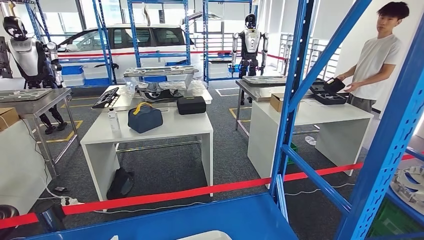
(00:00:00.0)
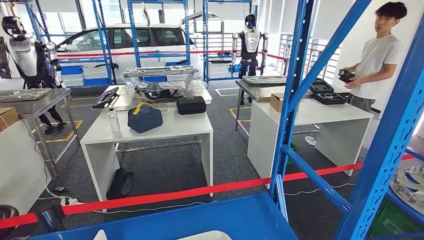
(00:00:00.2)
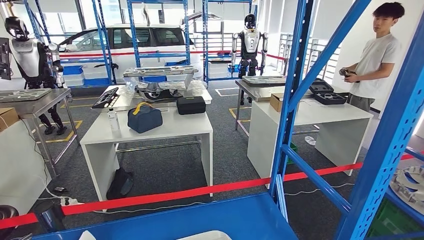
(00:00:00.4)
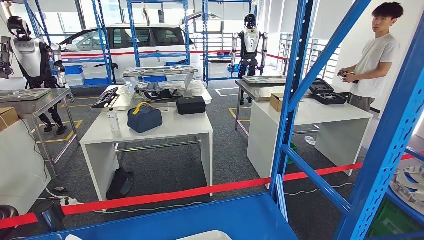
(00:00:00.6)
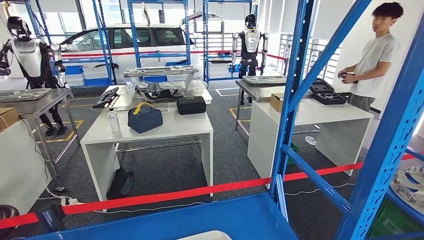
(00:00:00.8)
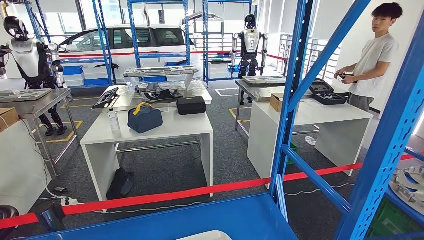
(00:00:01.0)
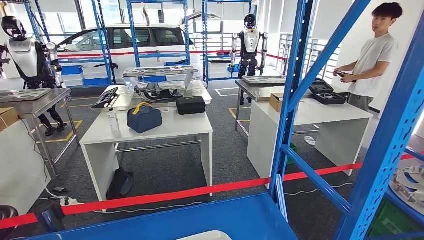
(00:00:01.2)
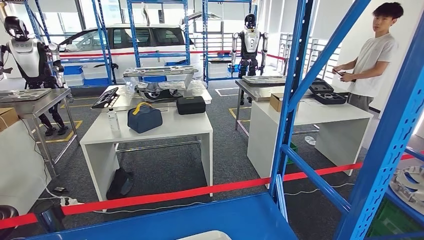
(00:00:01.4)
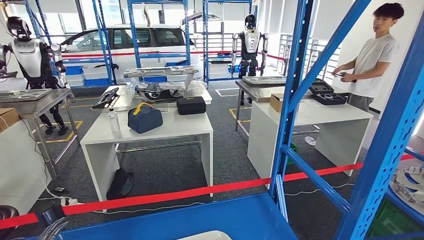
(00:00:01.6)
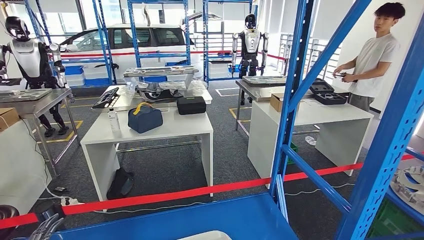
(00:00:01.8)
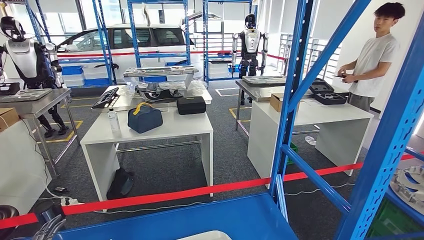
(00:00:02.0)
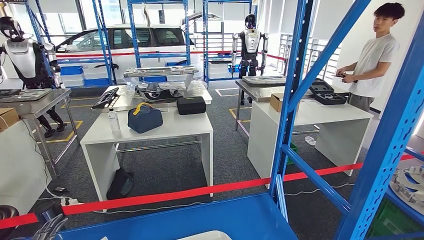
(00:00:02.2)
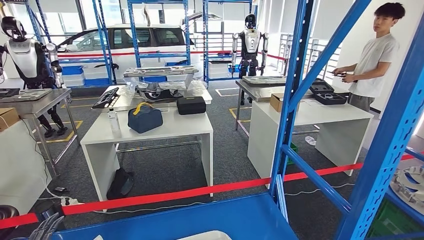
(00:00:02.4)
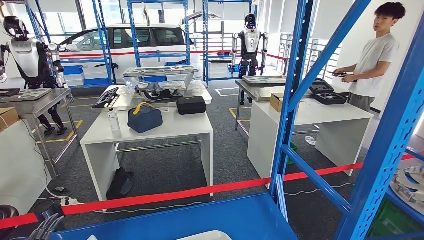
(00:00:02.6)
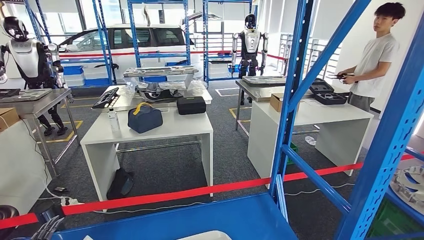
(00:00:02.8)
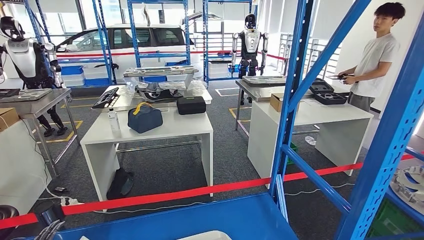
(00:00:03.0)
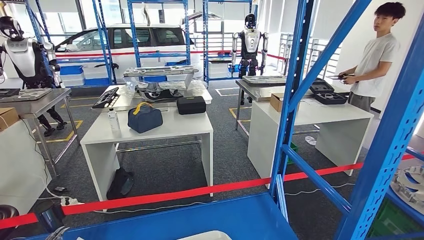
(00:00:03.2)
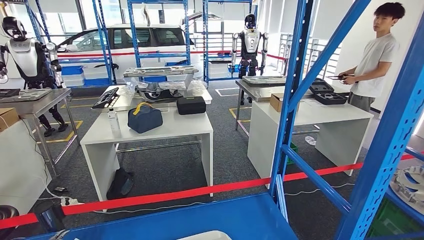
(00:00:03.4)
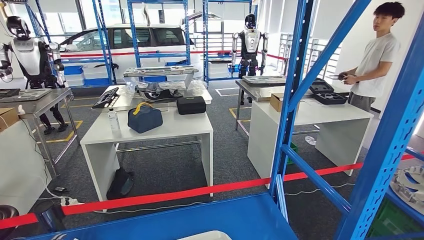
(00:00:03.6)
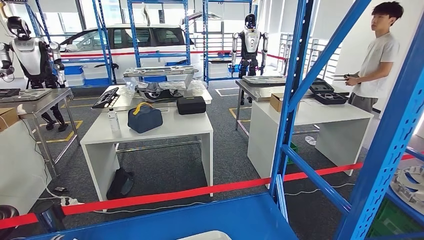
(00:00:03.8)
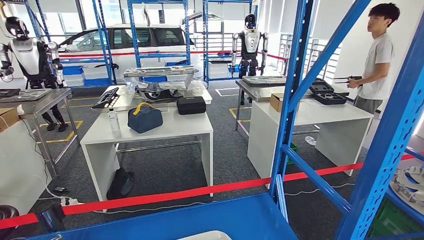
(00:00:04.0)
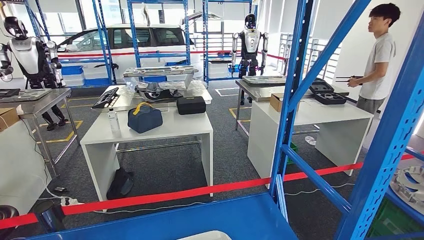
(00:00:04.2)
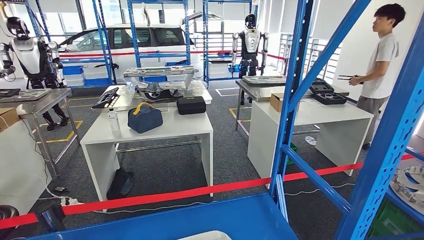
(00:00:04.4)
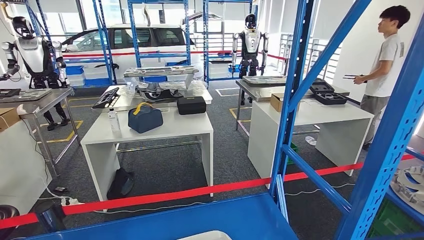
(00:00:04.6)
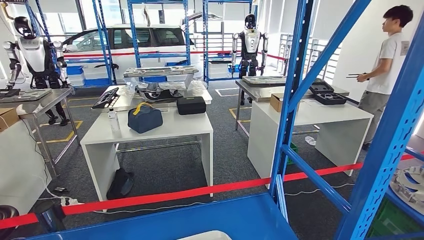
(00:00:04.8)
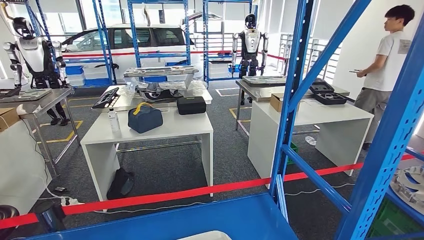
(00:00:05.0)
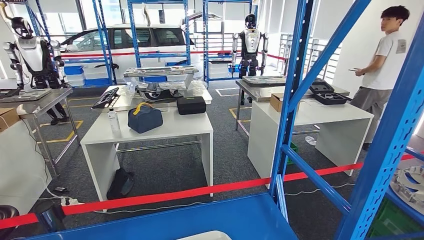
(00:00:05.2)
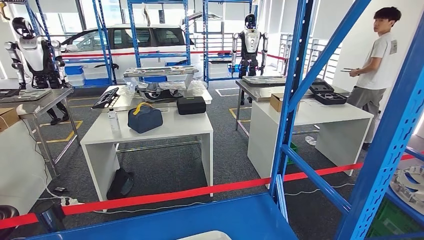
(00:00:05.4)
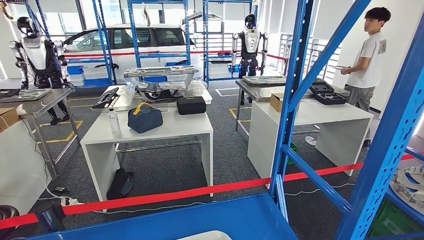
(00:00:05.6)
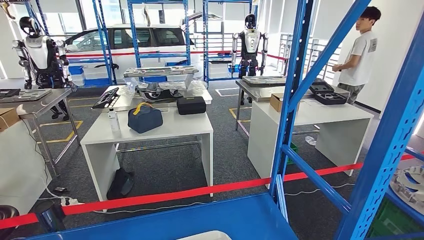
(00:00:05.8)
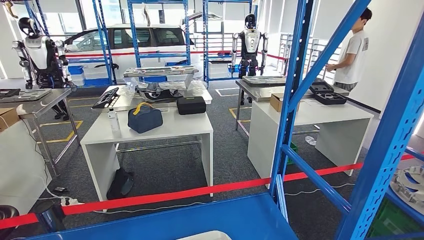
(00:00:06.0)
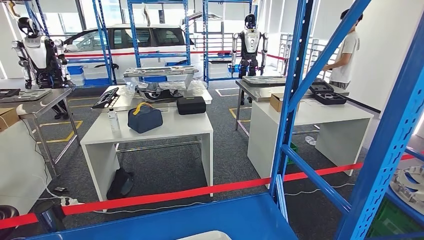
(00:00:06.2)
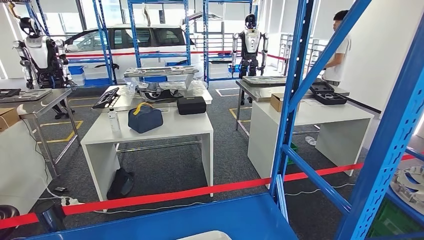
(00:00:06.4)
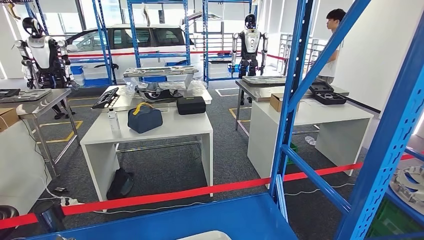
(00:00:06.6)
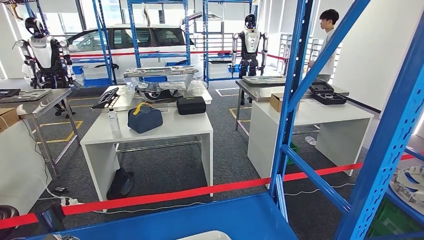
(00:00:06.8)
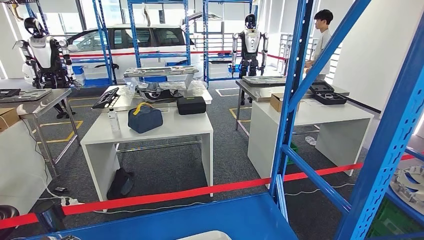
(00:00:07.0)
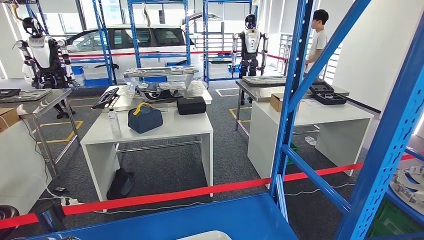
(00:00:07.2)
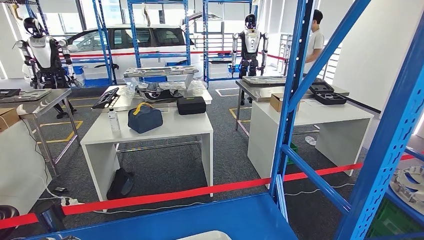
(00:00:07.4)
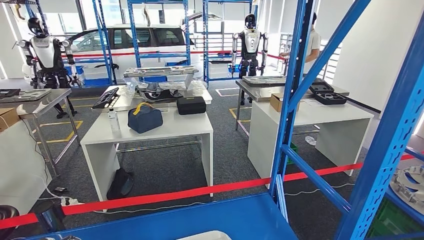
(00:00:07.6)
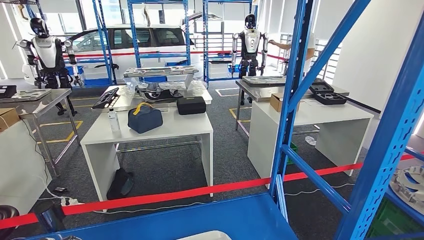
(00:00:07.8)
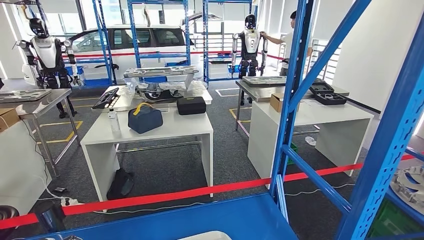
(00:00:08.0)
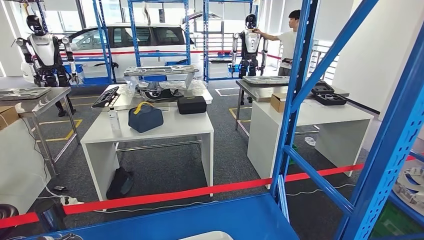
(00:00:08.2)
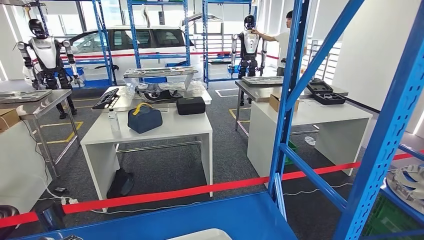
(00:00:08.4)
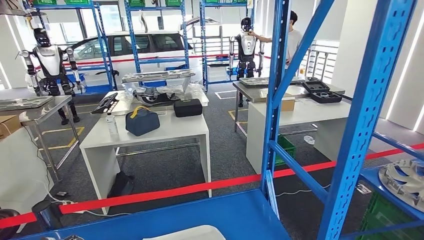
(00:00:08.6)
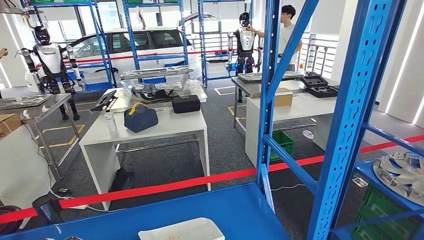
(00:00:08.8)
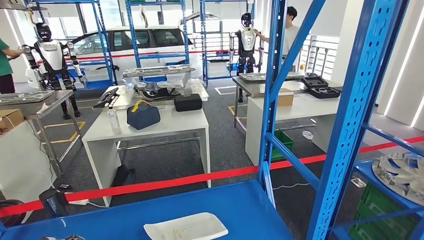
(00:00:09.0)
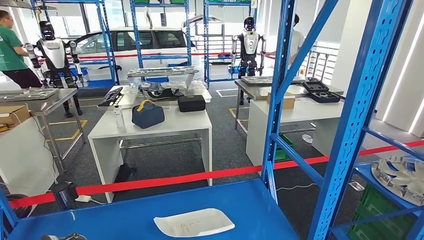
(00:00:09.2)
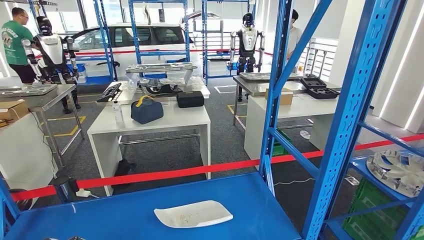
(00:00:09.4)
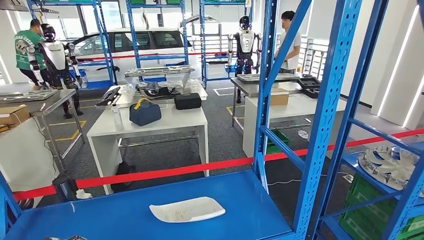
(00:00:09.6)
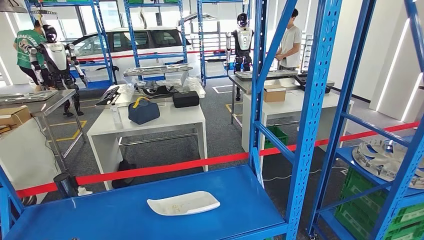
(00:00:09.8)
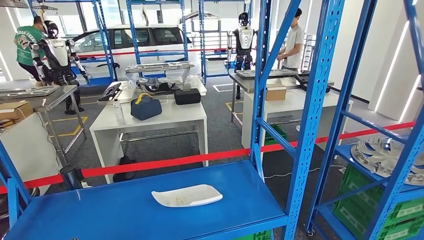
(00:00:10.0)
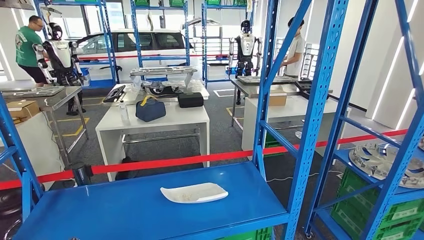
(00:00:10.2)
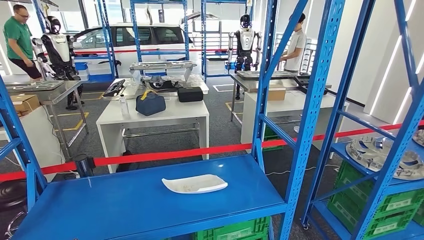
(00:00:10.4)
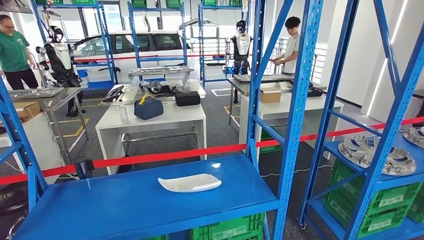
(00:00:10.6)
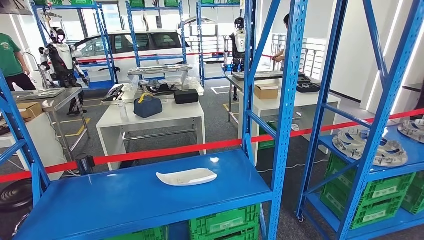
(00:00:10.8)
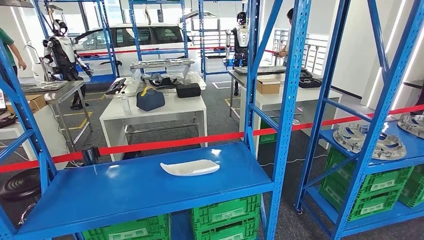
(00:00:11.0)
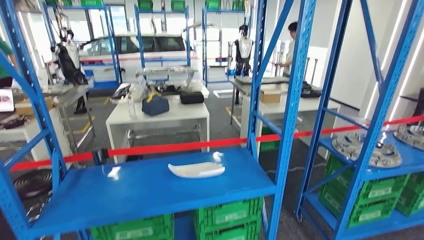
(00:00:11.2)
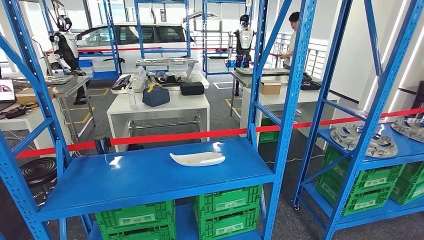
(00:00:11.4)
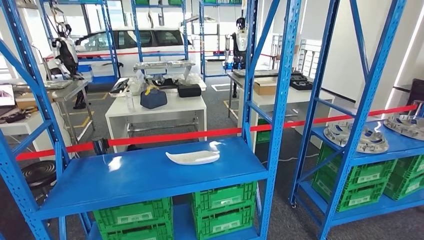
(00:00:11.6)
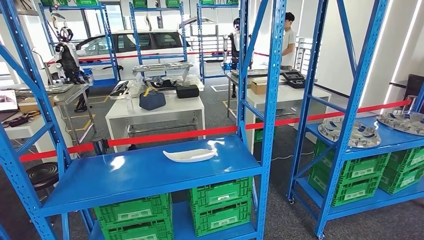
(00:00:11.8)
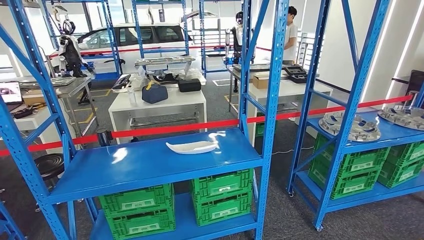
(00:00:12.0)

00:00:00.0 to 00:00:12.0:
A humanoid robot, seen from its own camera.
Step, 00:00:00.0 to 00:00:07.4: Take small components from the rack.
00:00:00.0 to 00:00:01.6: The left hand heads to the right, covering approximately 10 cm.
00:00:01.6 to 00:00:03.0: The left hand moves forward, roughly 5 cm.
00:00:04.4 to 00:00:06.0: The two hands keep their place.

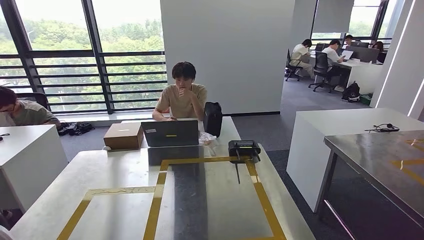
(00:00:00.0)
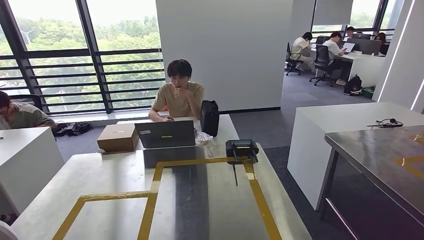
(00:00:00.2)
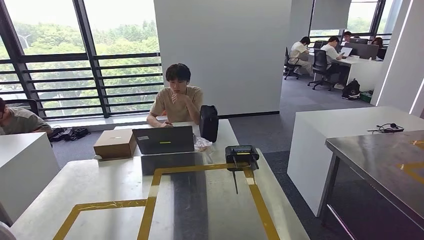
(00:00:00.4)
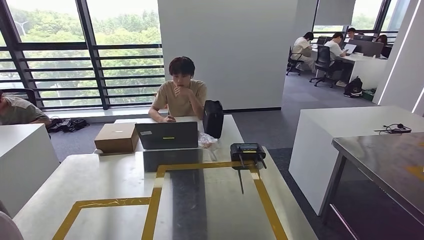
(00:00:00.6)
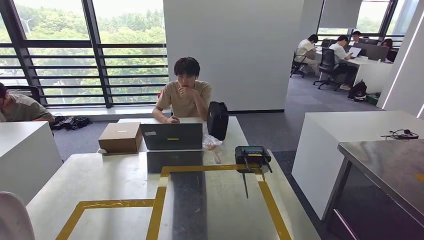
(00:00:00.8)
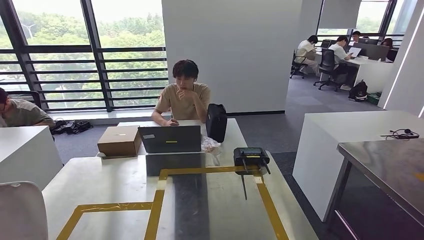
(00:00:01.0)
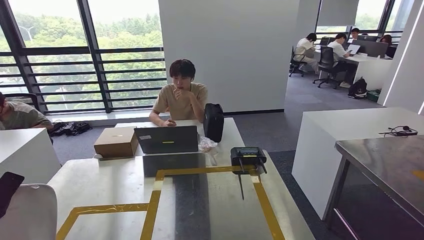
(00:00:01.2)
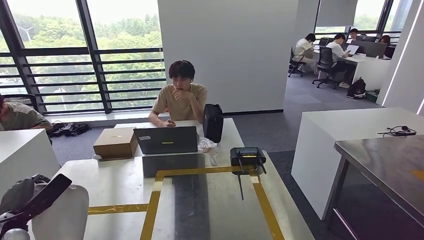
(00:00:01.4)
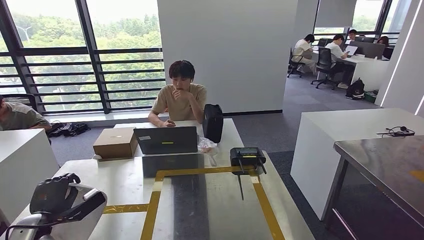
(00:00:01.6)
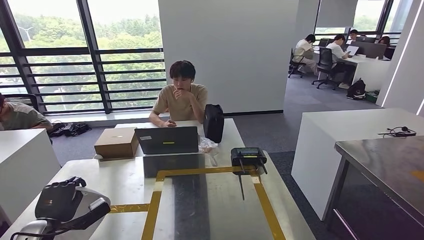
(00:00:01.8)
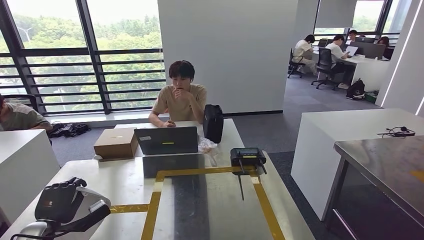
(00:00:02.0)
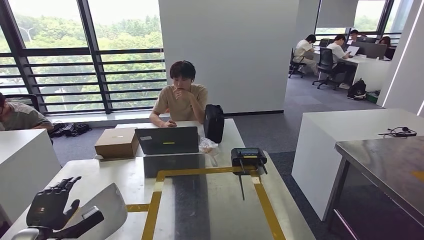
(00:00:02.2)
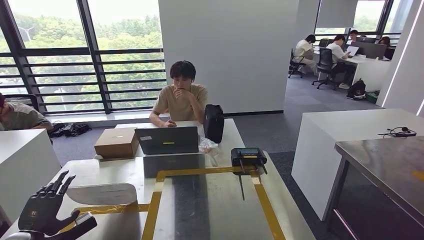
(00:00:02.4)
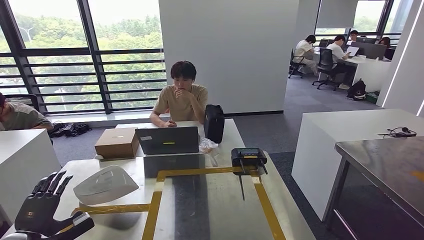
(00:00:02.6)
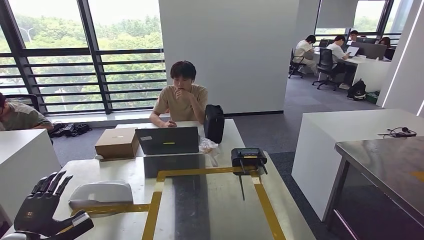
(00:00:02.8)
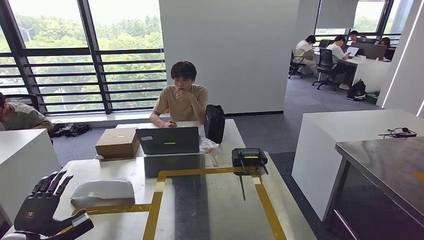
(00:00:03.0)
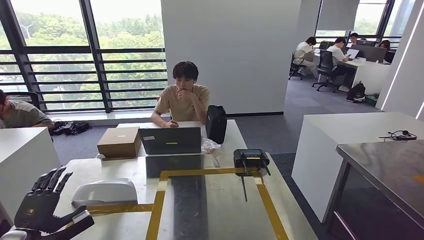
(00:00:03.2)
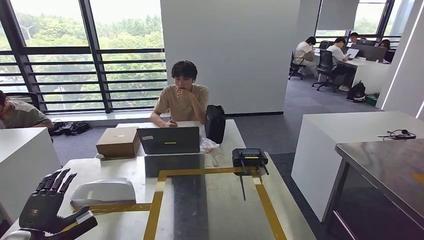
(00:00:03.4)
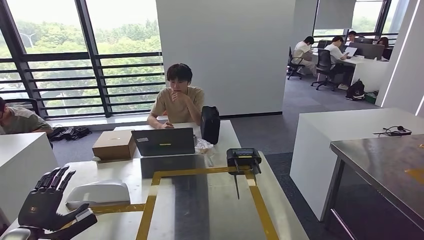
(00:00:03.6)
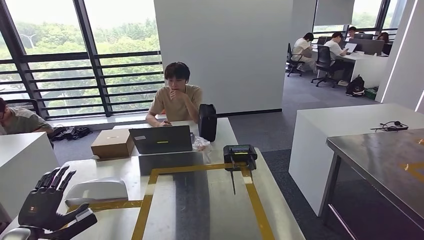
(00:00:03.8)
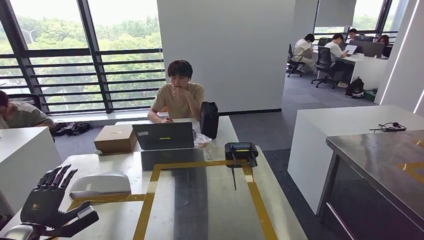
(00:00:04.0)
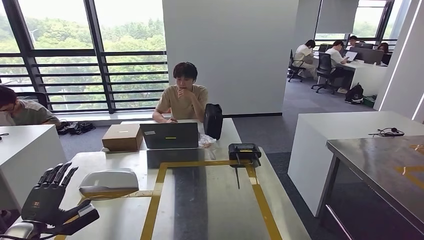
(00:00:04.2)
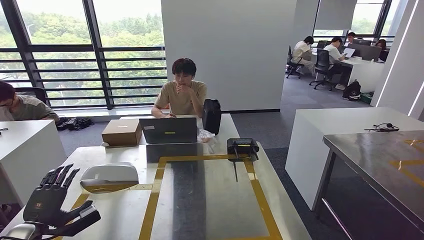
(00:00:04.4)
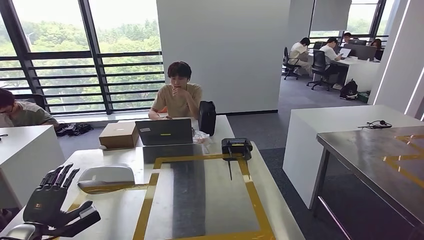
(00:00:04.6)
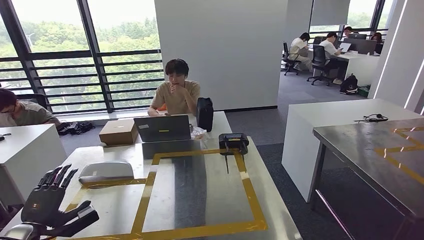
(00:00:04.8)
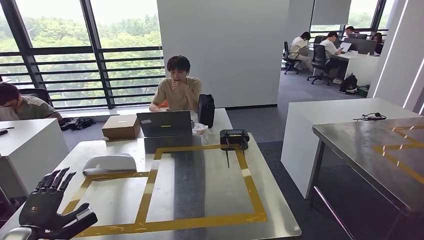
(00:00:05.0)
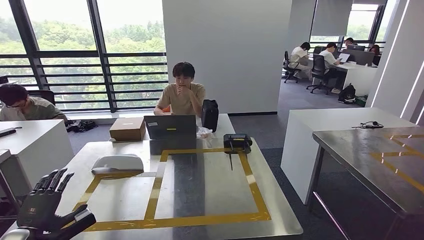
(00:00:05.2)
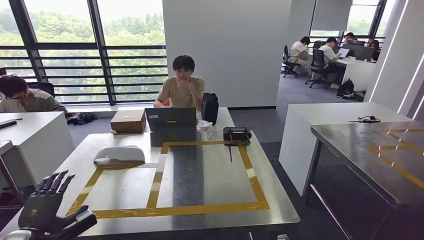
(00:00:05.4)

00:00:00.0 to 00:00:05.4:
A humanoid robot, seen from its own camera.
Step, 00:00:01.4 to 00:00:04.0: Insert the small parts into the corresponding holes on the workbench.
00:00:01.4 to 00:00:02.8: The left hand shifts by approximately 5 cm.
